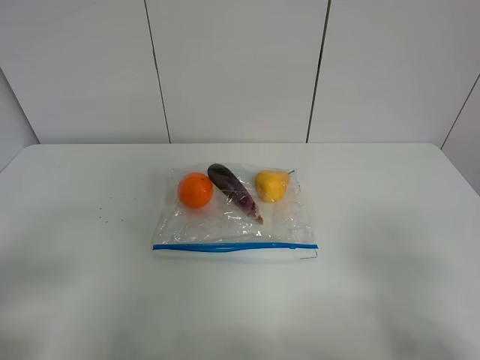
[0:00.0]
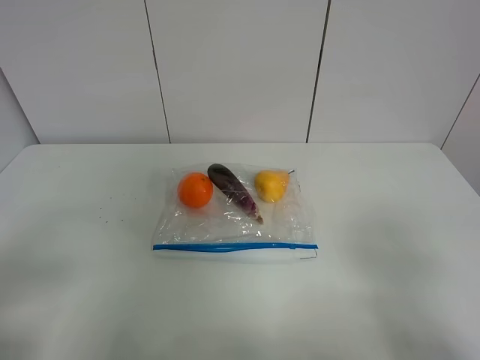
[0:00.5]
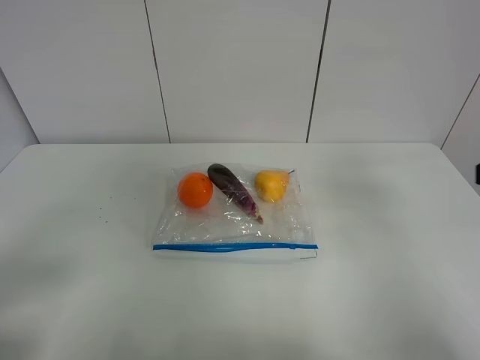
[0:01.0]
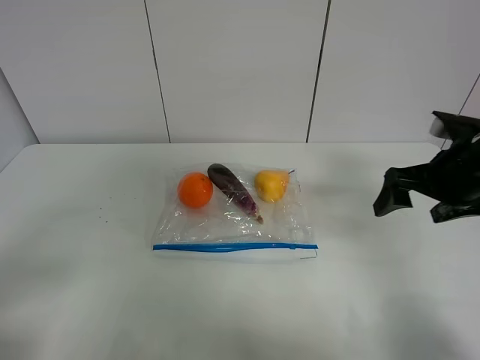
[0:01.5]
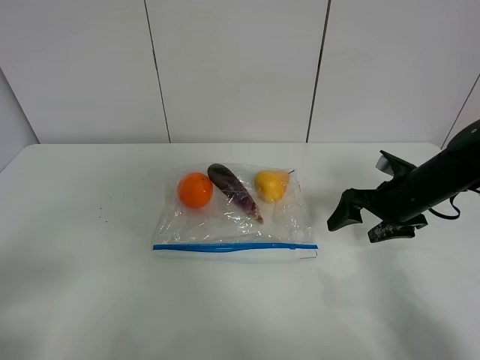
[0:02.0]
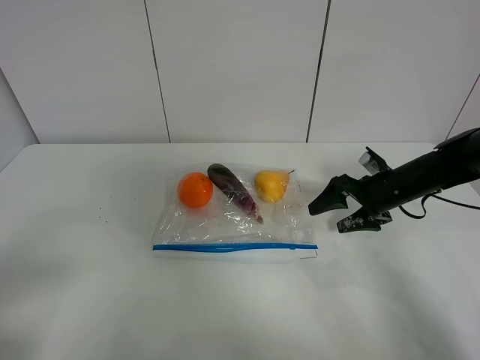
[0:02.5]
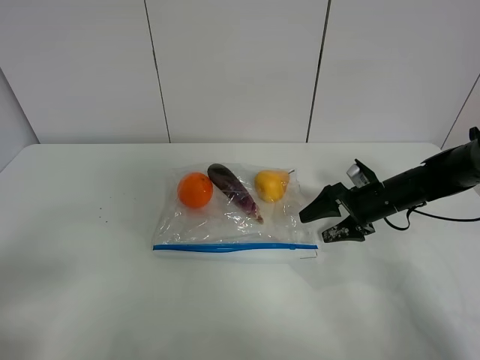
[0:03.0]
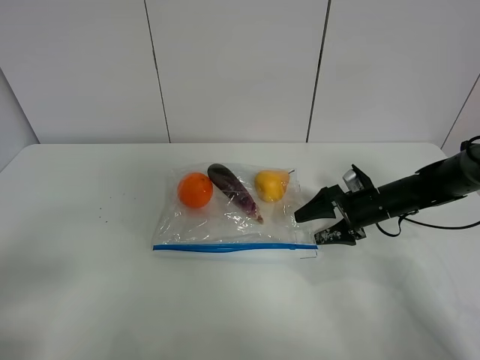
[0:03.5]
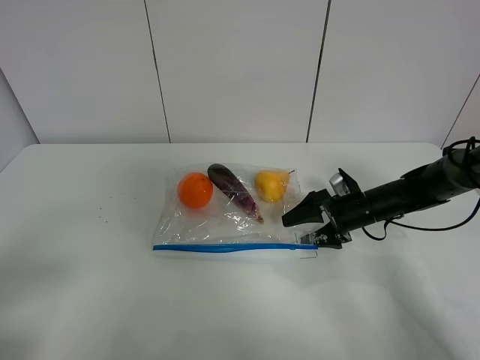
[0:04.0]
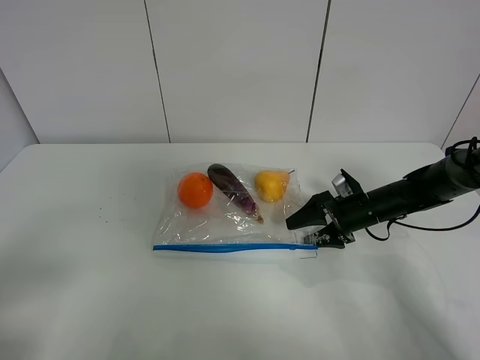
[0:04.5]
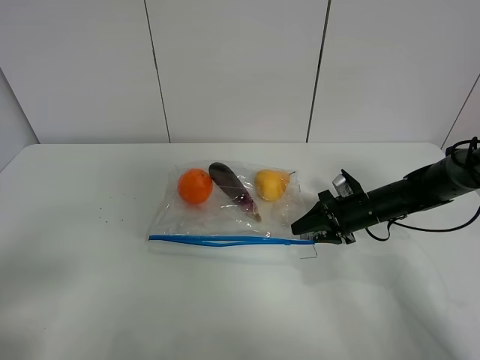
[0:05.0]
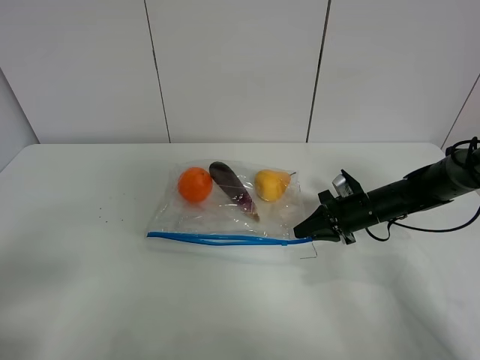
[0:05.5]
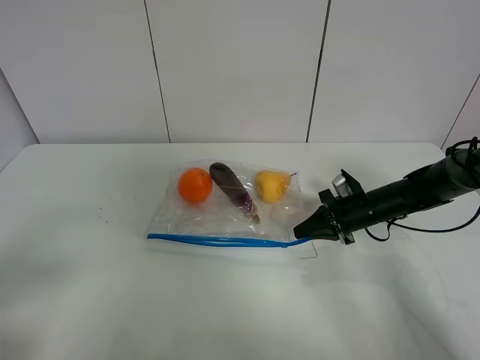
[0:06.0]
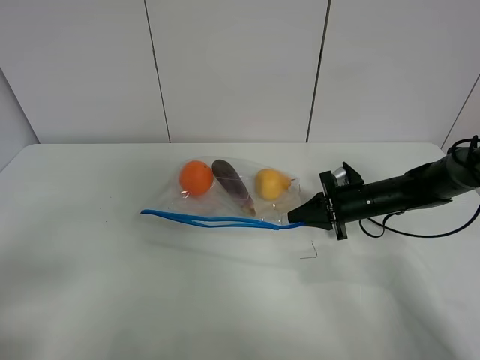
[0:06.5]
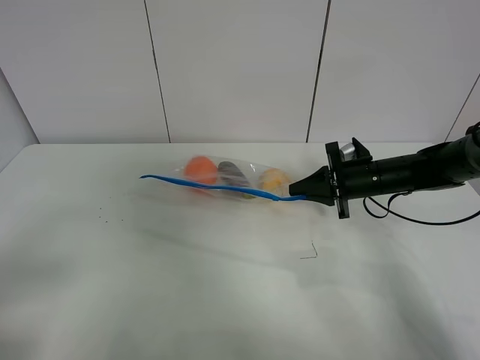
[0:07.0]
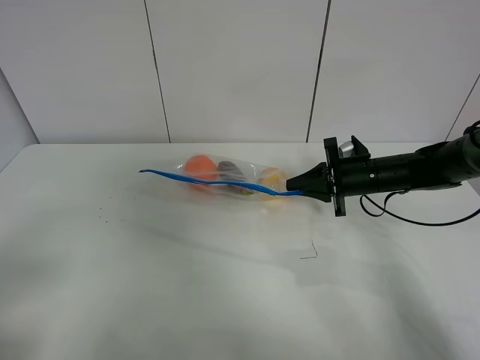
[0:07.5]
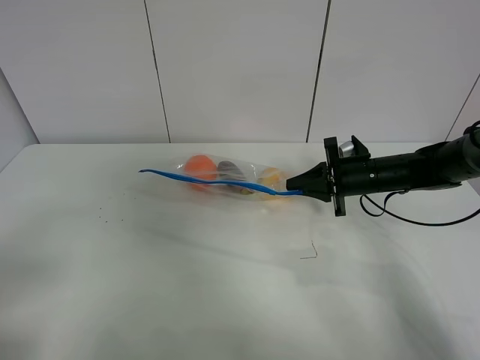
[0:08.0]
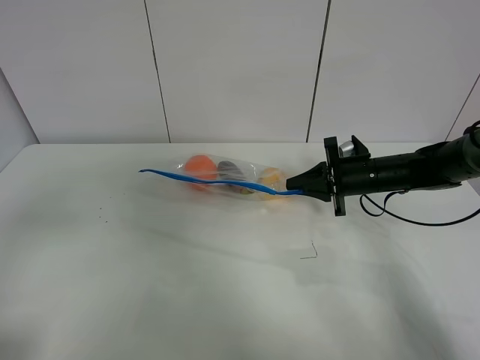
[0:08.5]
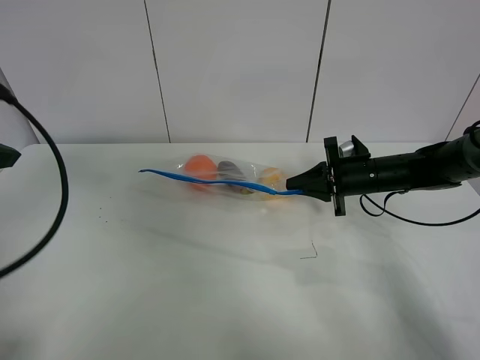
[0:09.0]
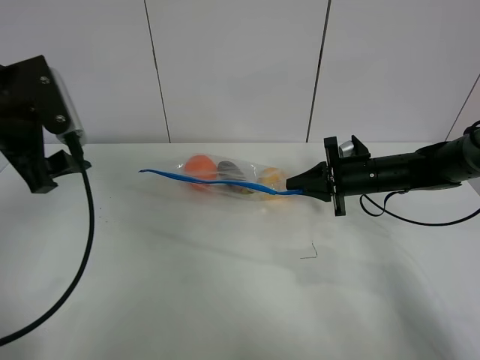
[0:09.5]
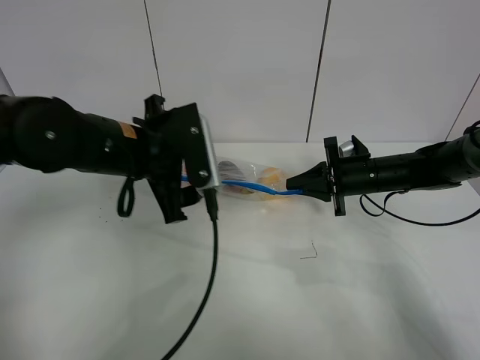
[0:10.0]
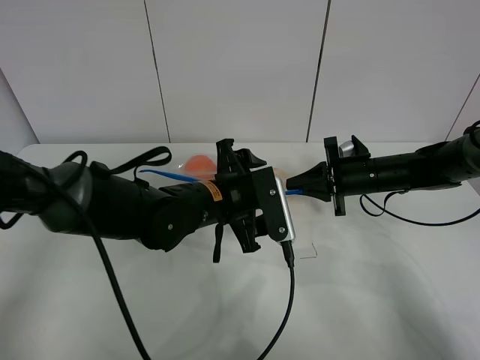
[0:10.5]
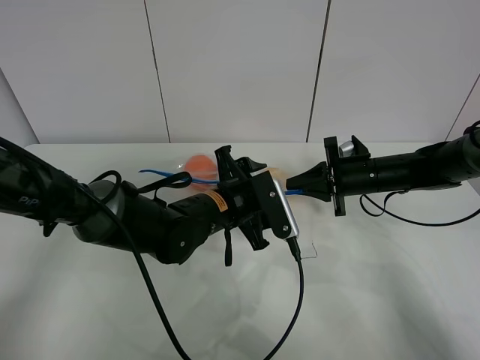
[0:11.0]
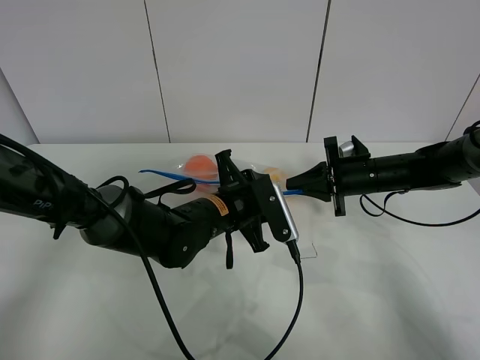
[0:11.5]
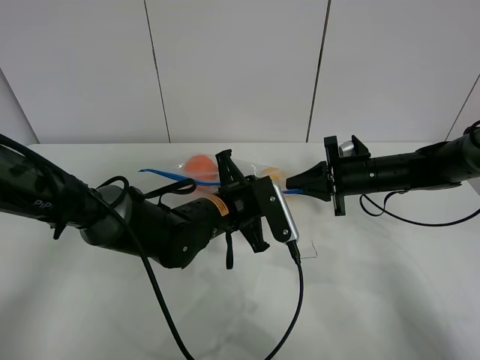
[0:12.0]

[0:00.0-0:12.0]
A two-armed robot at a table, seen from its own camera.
Step, 0:00.0 to 0:05.5: Grasp the fruit bag with right gripper.
Step, 0:06.0 to 0:07.0: Lift the fruit bag with your right gripper.
0:00.0 to 0:02.0: The right gripper moves forward and downward, some 35 cm.
0:02.0 to 0:04.0: The right gripper travels downward by roughly 10 cm.
0:04.0 to 0:06.0: The right gripper closes up.
0:06.0 to 0:08.0: The right gripper heads upward, covering roughly 5 cm.
0:08.0 to 0:10.0: The left gripper travels forward and to the right by some 35 cm.
0:10.0 to 0:12.0: The left gripper travels downward and to the right by approximately 15 cm, and closes its fingers.

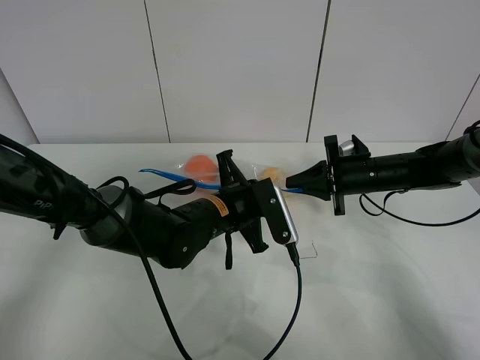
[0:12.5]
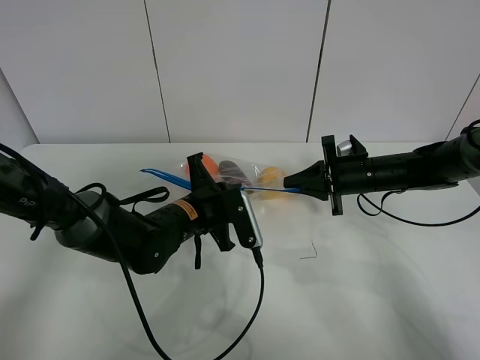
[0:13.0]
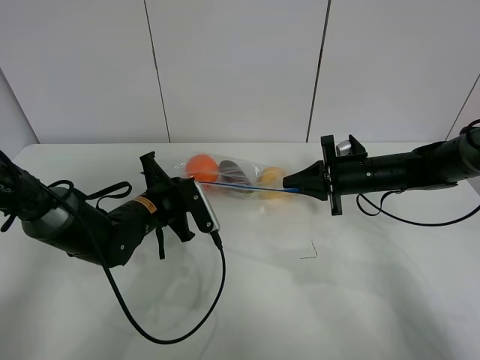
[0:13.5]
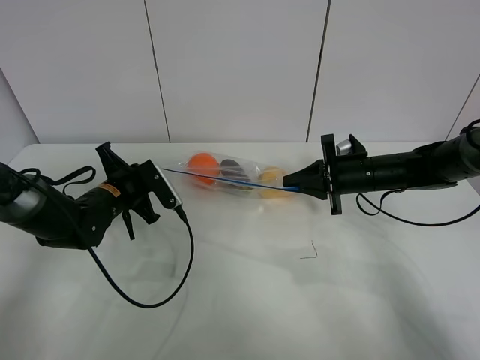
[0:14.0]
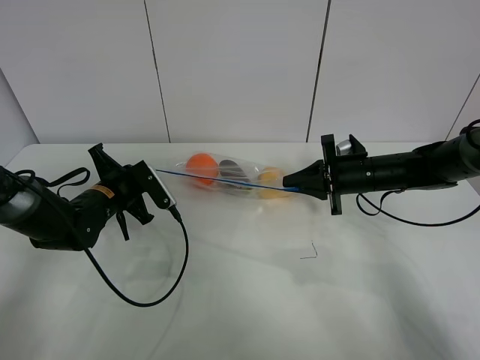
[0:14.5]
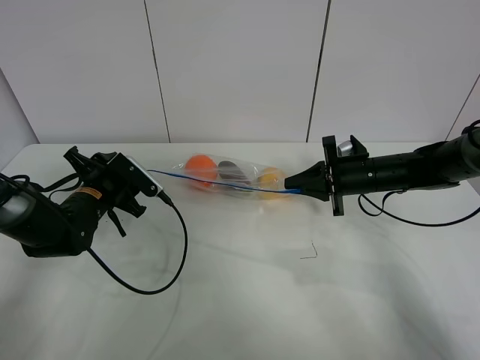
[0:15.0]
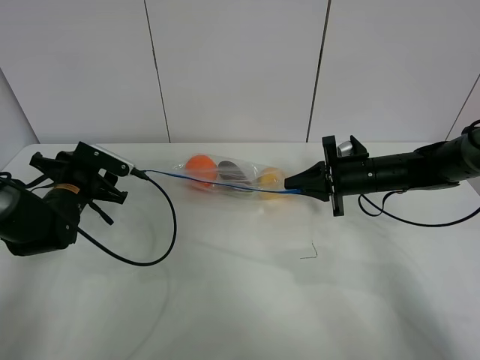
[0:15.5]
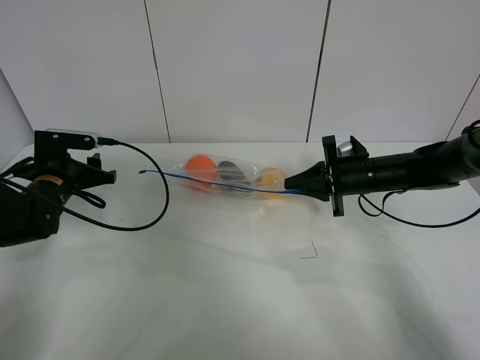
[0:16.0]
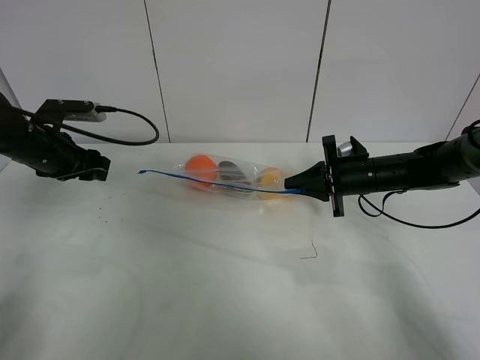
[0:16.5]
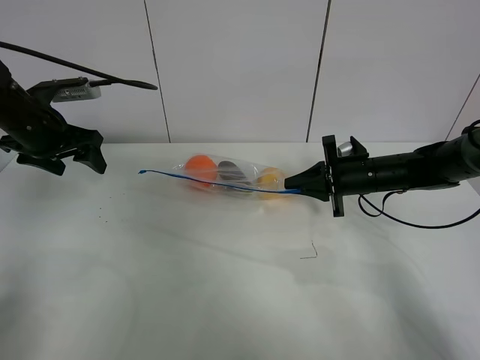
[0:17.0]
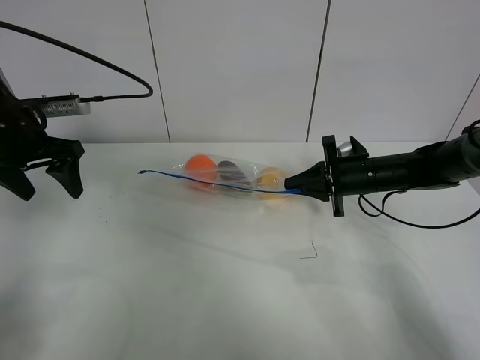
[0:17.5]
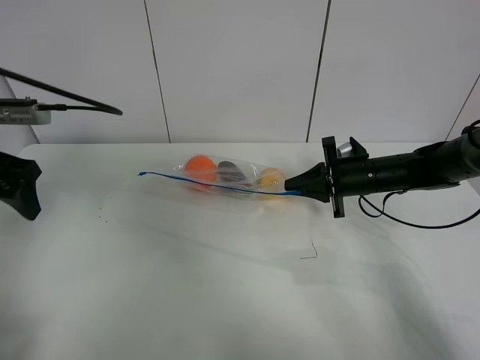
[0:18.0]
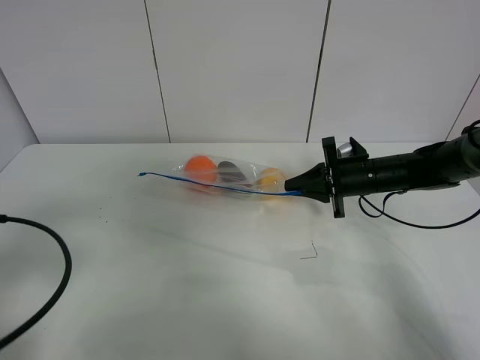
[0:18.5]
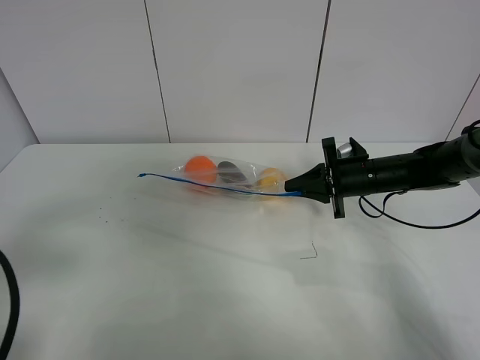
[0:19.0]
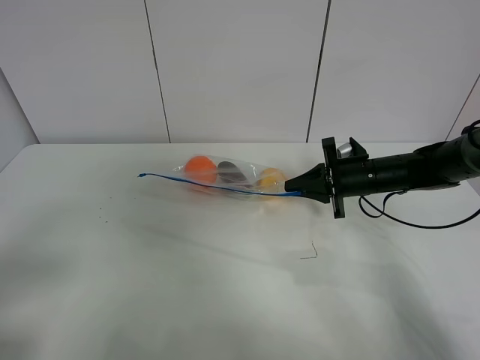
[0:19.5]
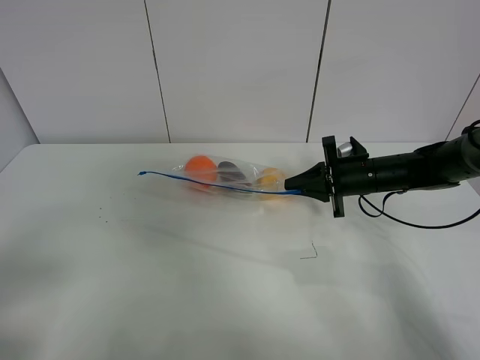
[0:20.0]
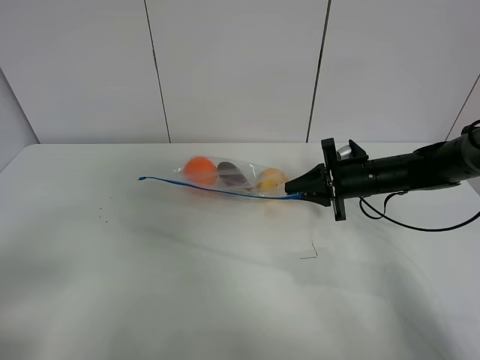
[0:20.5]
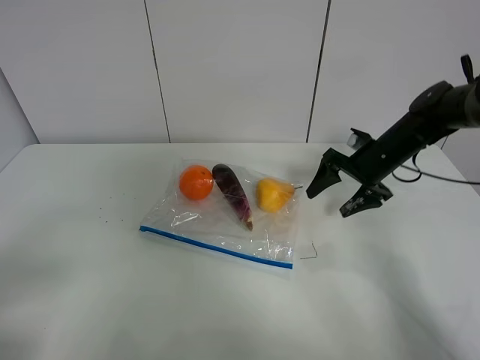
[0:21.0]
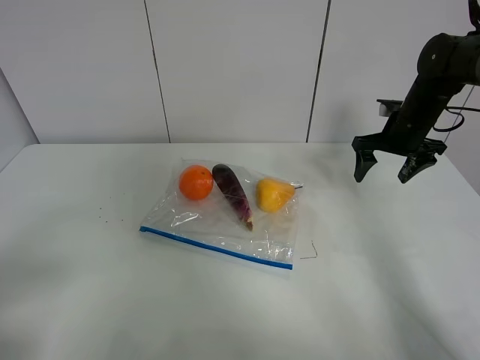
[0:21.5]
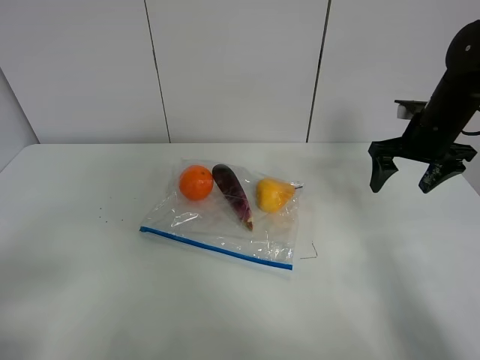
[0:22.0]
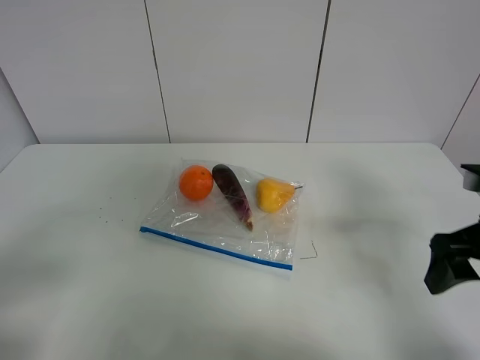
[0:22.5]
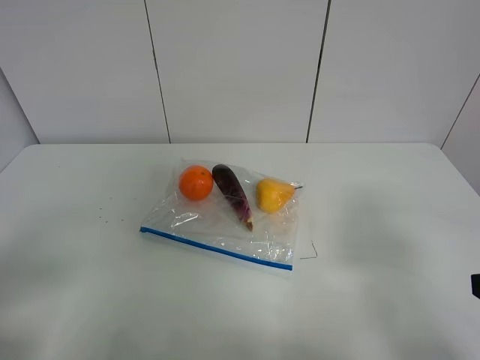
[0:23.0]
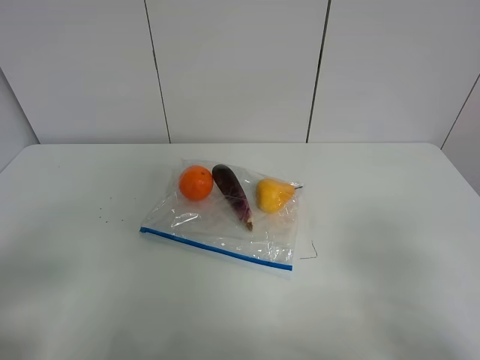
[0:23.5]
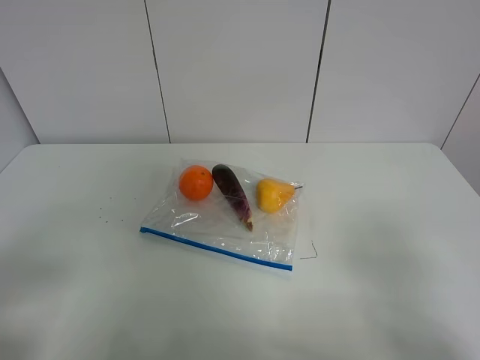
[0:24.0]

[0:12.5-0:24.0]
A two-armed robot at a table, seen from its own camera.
Step, 0:12.5 to 0:15.5: Pull the fruit bag with left gripper.
0:12.5 to 0:14.5: The left gripper goes some 20 cm to the left.
0:14.5 to 0:16.5: The left gripper travels upward and to the left by about 15 cm, and opens its fingers.
0:16.5 to 0:18.5: The left gripper goes roughly 25 cm backward.
0:18.5 to 0:20.0: The left gripper goes approximately 10 cm backward.
0:20.0 to 0:22.0: The right gripper is displaced upward and to the right by roughly 15 cm, and opens up.
0:22.0 to 0:24.0: The right gripper is displaced backward by some 35 cm.

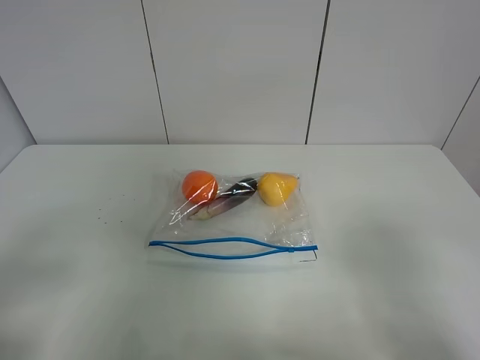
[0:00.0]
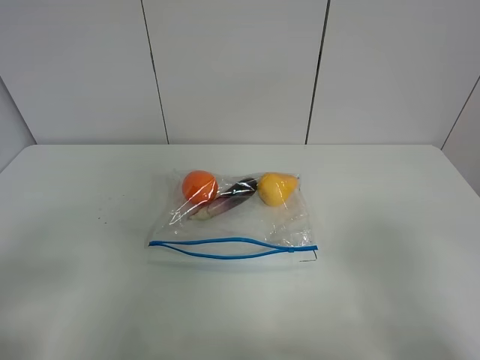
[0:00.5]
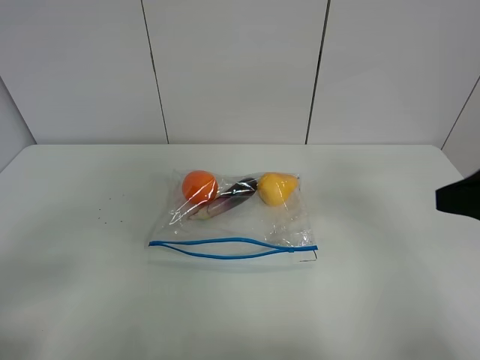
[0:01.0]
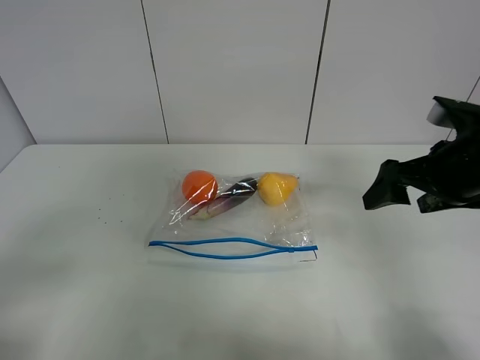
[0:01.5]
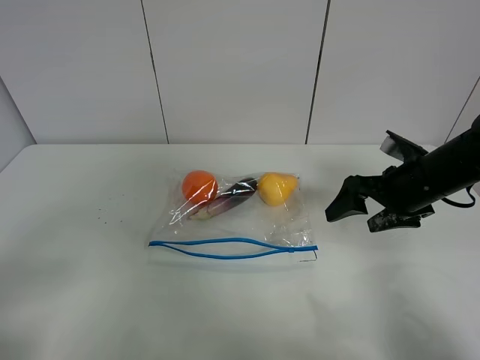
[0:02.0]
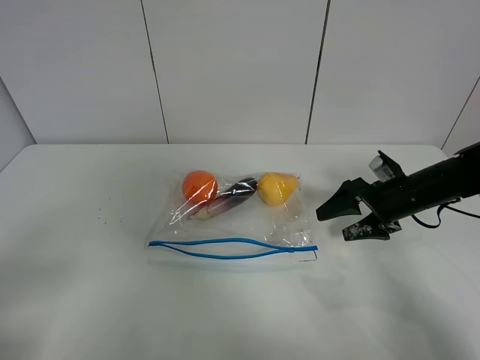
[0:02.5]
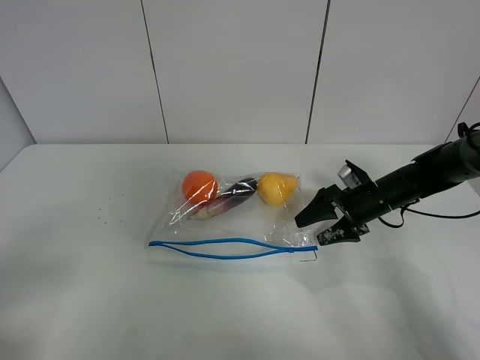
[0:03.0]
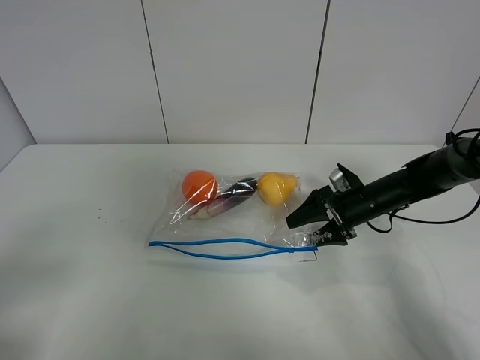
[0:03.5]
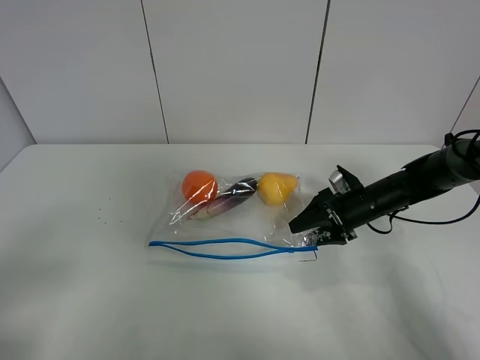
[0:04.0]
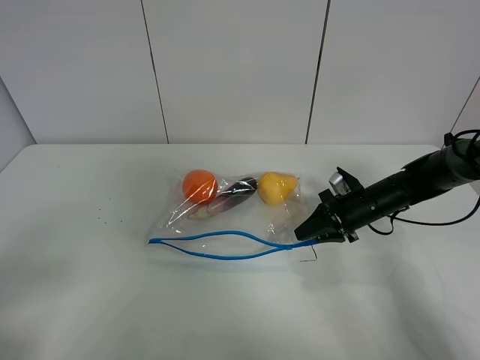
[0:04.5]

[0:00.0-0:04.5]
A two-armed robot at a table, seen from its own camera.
0:00.0 to 0:02.0: The right gripper heads forward, covering some 30 cm.
0:02.0 to 0:04.5: The right gripper moves downward and forward, some 10 cm, and closes.
